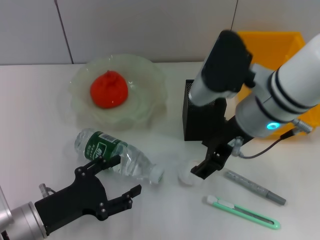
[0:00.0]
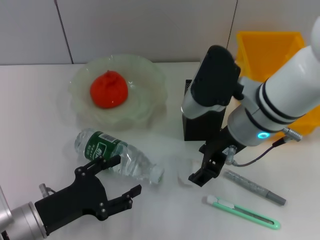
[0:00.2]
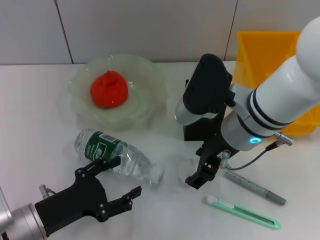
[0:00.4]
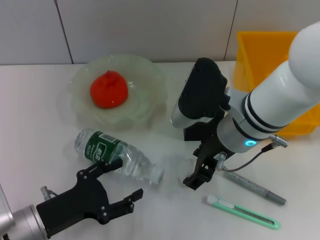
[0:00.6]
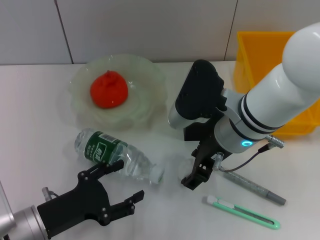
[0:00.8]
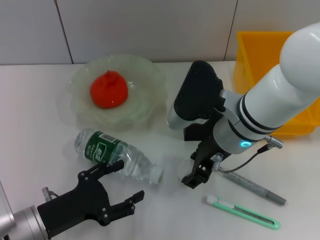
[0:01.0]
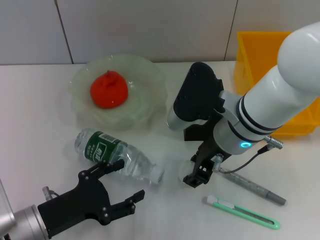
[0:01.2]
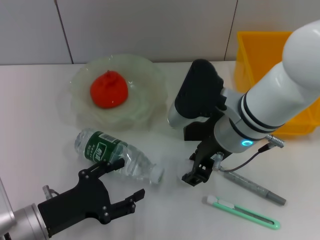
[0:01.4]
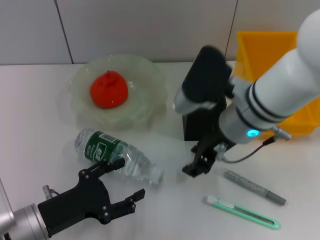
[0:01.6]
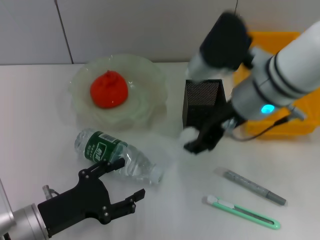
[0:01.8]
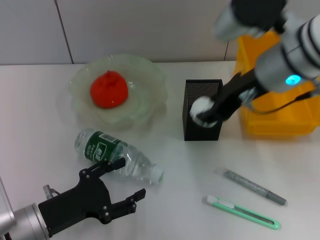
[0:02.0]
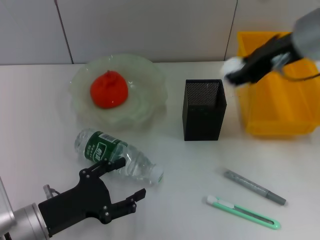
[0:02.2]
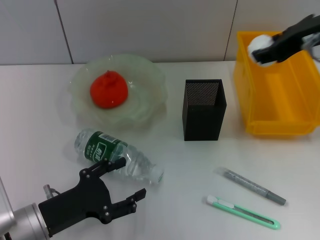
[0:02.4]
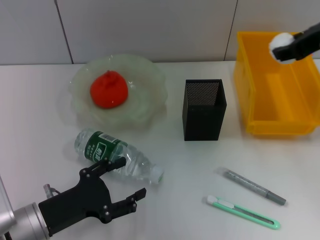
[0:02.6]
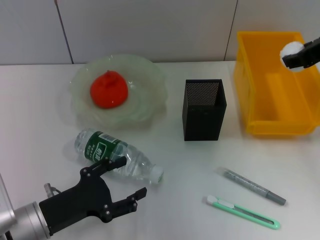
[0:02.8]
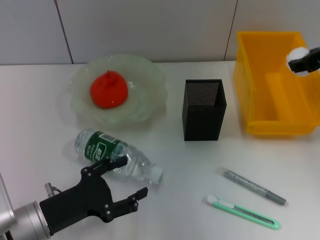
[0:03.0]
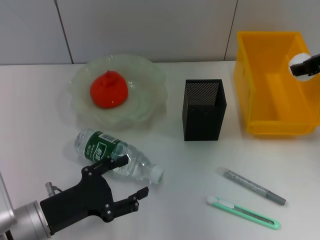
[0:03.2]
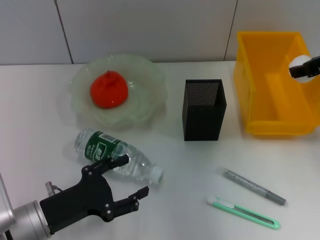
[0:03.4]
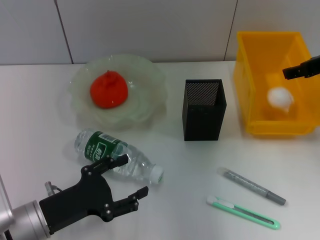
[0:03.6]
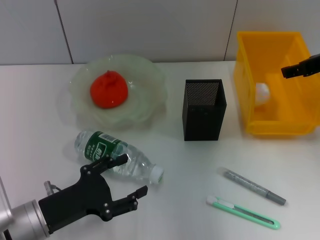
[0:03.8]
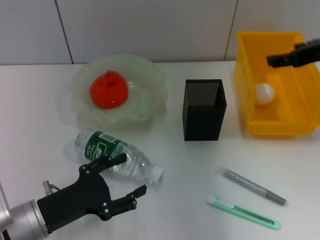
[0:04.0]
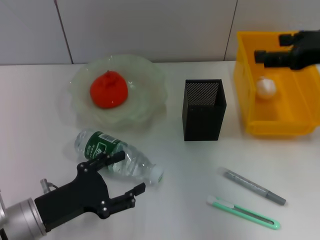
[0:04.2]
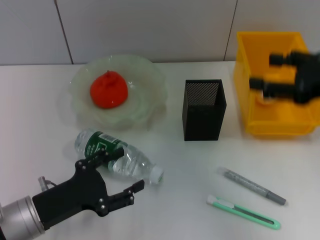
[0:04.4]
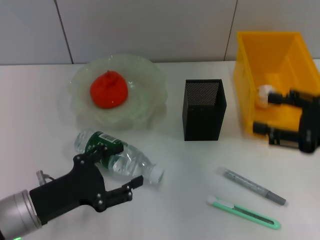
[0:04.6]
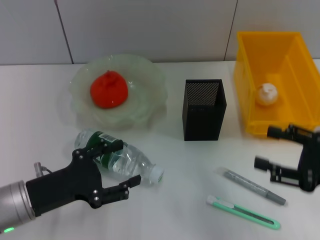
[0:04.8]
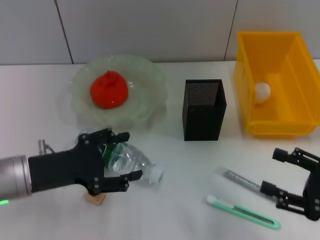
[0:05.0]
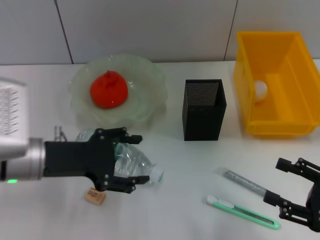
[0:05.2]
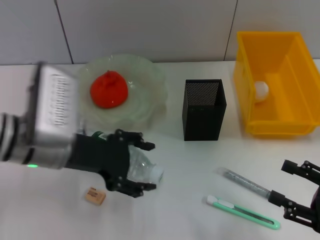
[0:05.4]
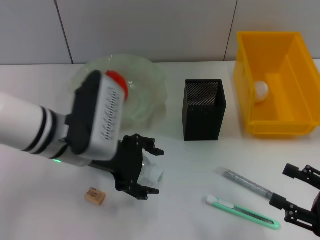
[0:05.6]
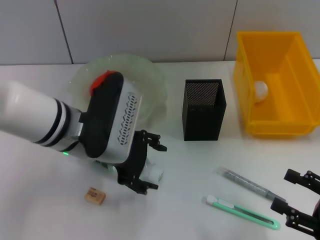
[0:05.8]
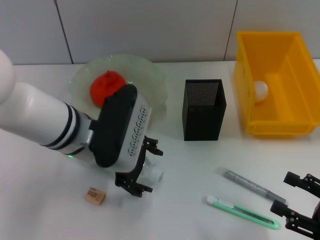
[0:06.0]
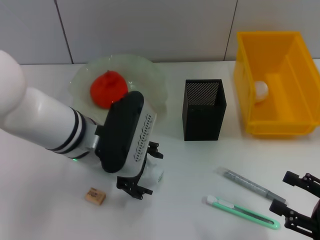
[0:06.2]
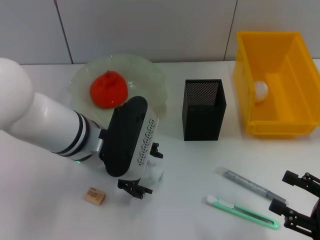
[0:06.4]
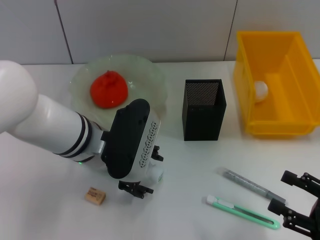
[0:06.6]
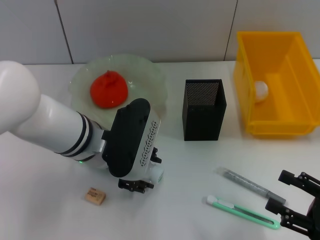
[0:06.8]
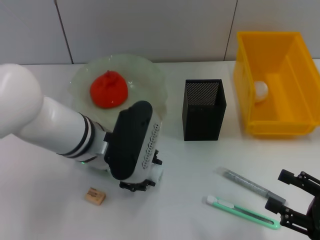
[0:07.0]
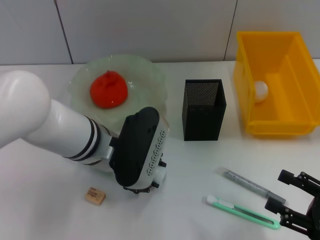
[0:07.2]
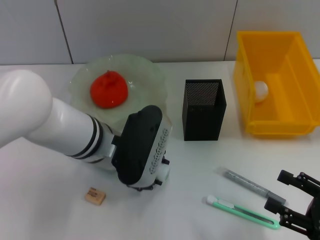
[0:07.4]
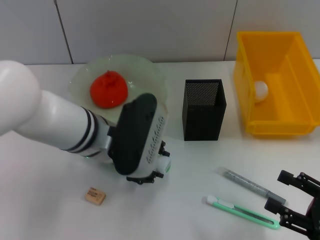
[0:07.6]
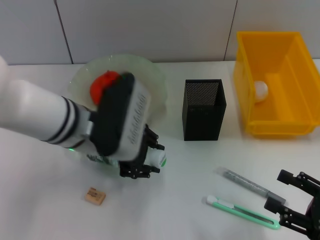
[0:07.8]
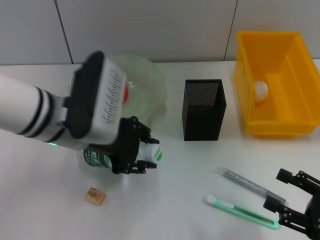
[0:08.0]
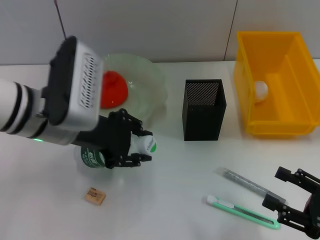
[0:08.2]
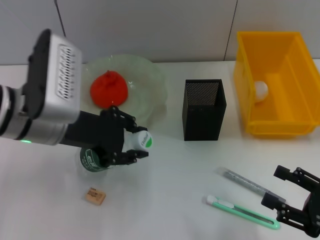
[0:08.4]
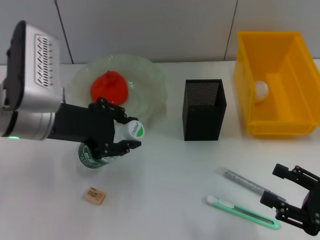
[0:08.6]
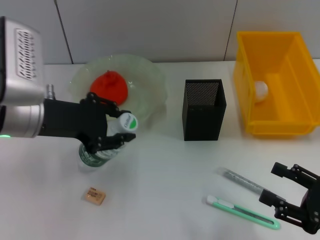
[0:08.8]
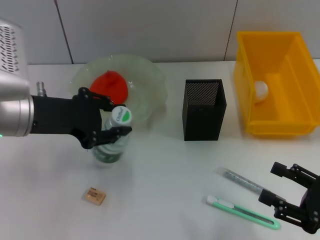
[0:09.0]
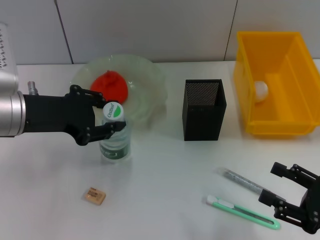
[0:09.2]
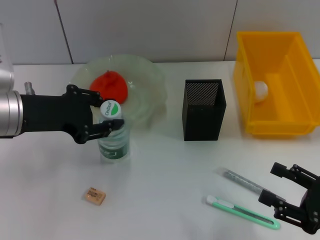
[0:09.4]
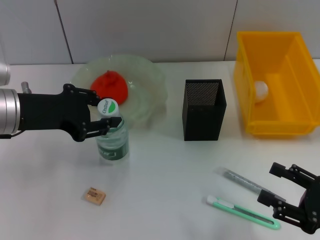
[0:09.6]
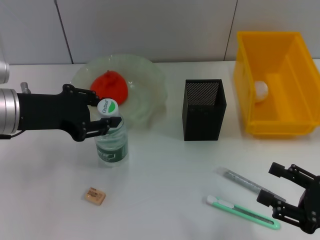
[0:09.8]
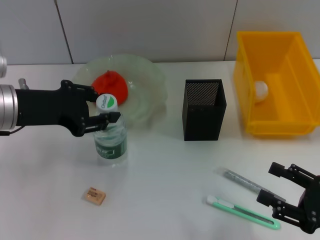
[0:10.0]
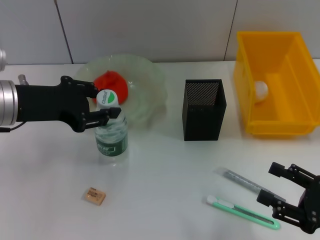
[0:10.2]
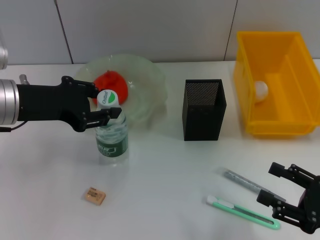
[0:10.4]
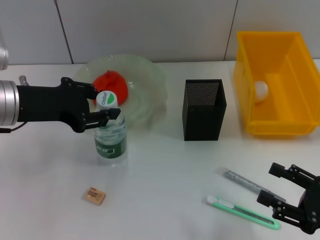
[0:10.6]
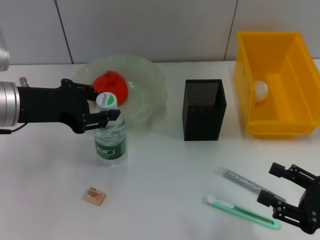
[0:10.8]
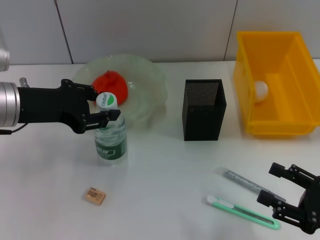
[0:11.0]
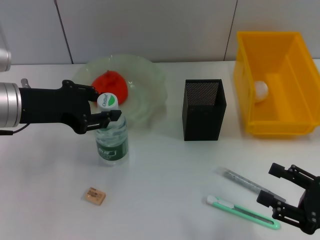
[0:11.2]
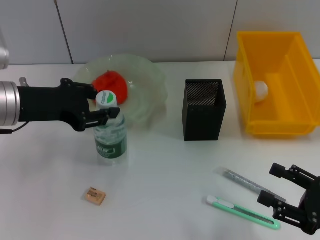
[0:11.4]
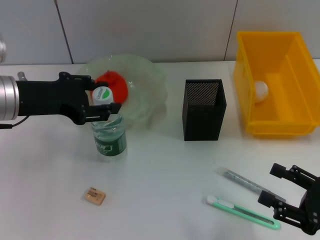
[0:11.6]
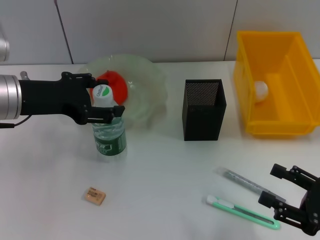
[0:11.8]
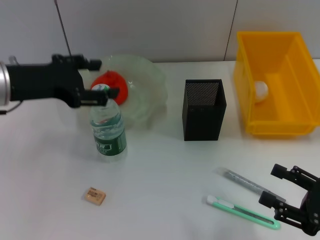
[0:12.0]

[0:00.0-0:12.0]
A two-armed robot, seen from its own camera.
Step, 0:01.4 to 0:03.8: Place the paper ball into the trash can with the right hand.
Step, 0:04.0 to 0:07.0: Grab the water bottle with the left hand.
0:00.0 to 0:01.6: The right gripper closes its fingers.
0:01.6 to 0:03.0: The right gripper moves to the right and upward, some 20 cm.
0:03.0 to 0:04.4: The right gripper moves backward, some 10 cm, and opens up.
0:04.4 to 0:06.0: The right gripper shifts some 20 cm downward and backward, while the left gripper moves upward, to the right and forward, about 20 cm.
0:06.0 to 0:07.6: The left gripper closes its fingers.
0:07.6 to 0:09.0: The left gripper is displaced to the left by some 10 cm.
0:09.0 to 0:10.4: The grippers make only small movements.
0:10.4 to 0:12.0: The left gripper opens its fingers.

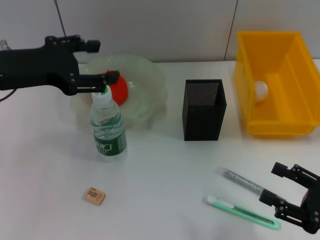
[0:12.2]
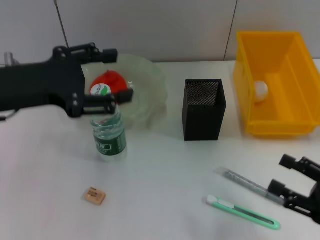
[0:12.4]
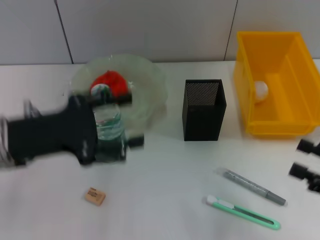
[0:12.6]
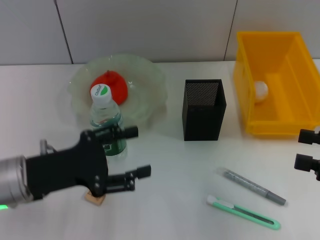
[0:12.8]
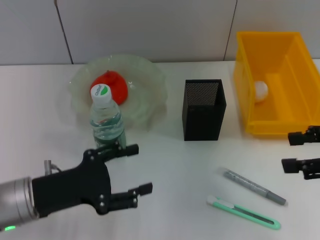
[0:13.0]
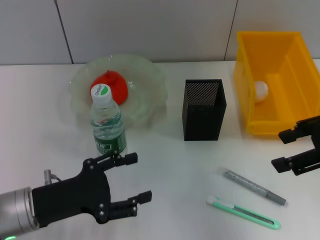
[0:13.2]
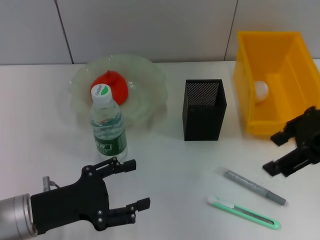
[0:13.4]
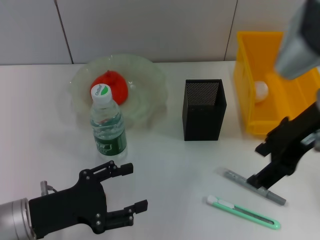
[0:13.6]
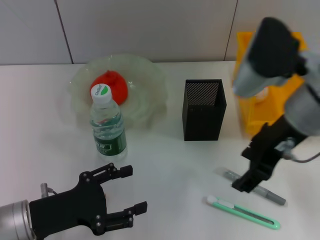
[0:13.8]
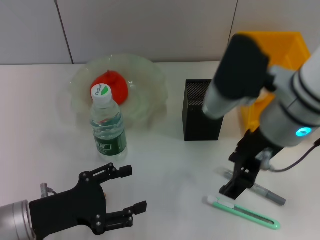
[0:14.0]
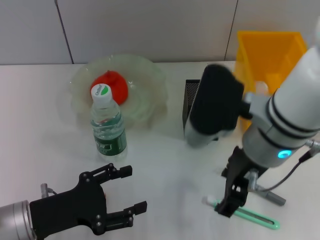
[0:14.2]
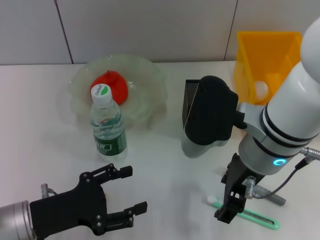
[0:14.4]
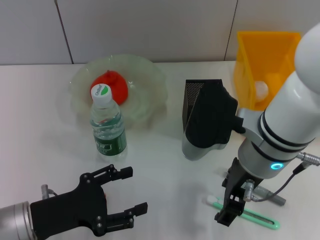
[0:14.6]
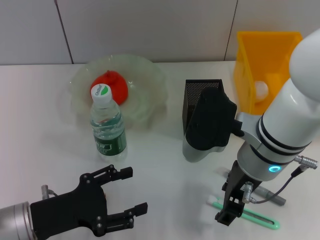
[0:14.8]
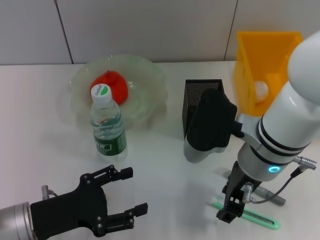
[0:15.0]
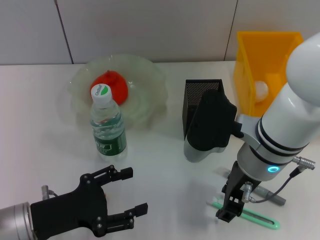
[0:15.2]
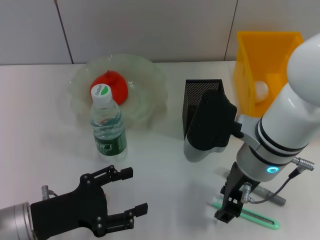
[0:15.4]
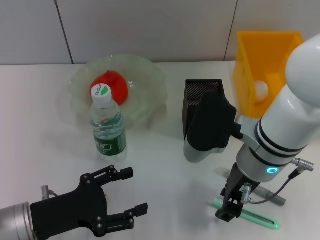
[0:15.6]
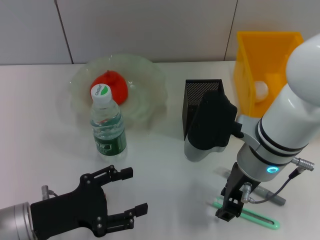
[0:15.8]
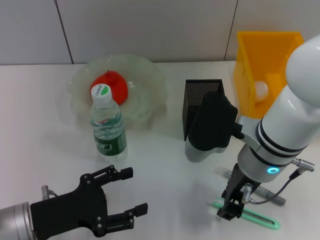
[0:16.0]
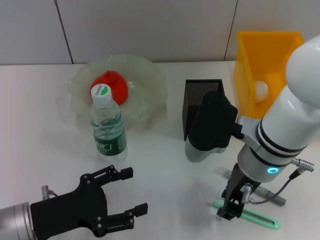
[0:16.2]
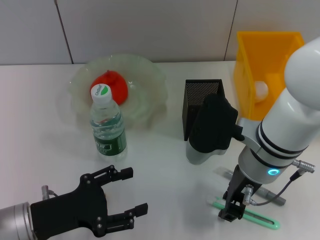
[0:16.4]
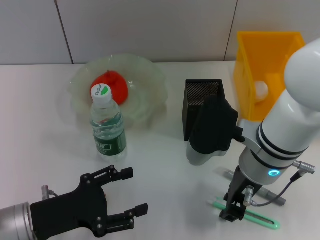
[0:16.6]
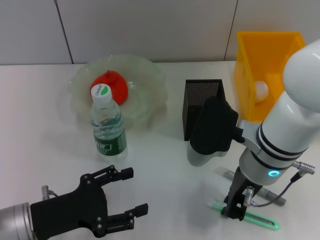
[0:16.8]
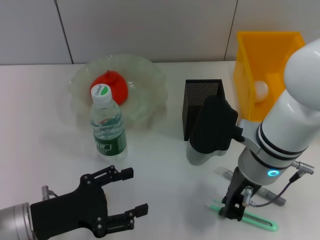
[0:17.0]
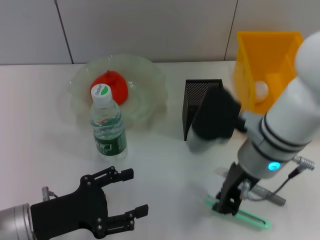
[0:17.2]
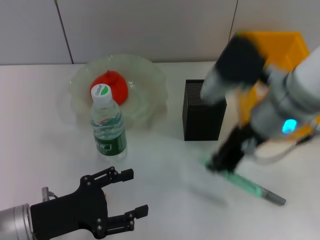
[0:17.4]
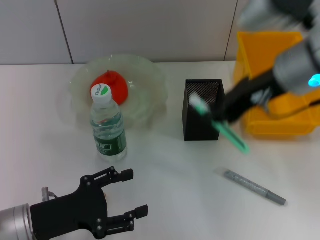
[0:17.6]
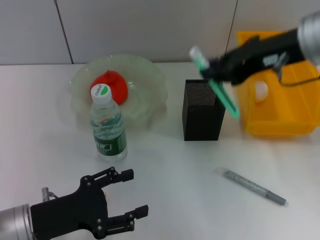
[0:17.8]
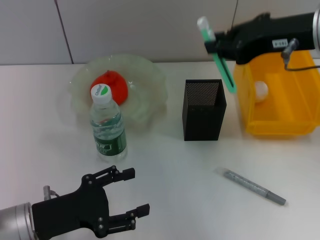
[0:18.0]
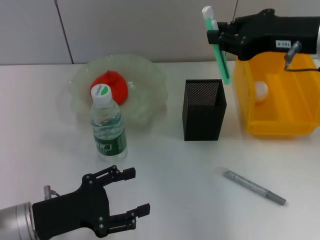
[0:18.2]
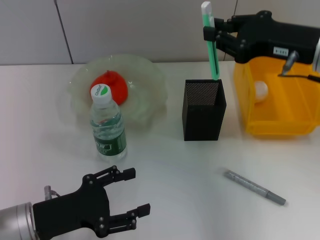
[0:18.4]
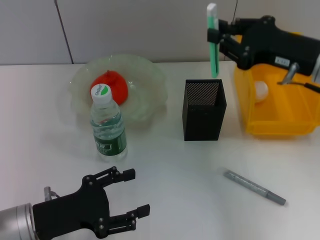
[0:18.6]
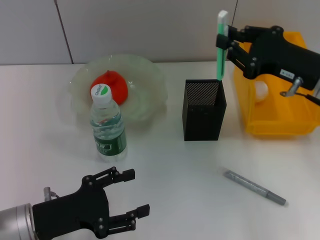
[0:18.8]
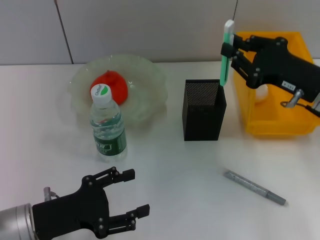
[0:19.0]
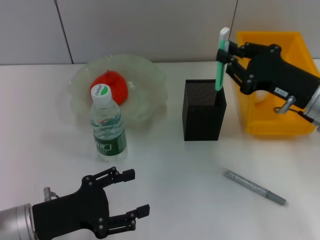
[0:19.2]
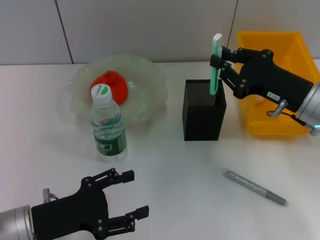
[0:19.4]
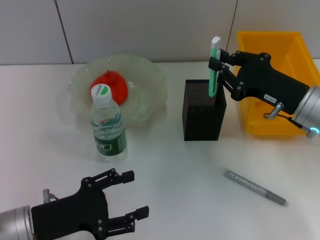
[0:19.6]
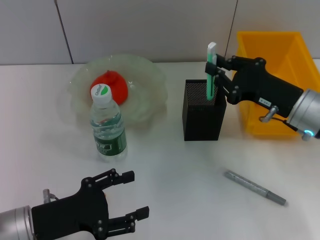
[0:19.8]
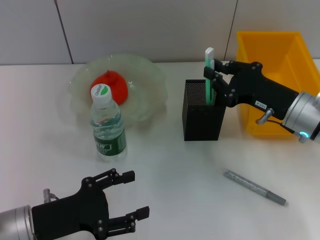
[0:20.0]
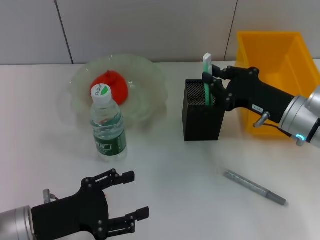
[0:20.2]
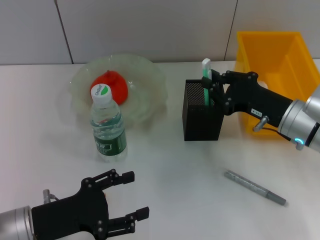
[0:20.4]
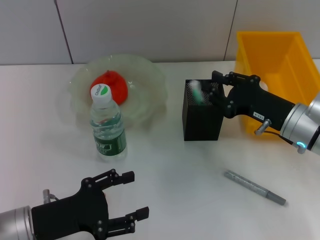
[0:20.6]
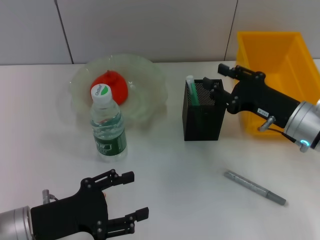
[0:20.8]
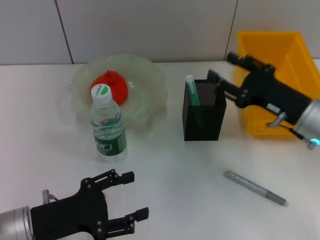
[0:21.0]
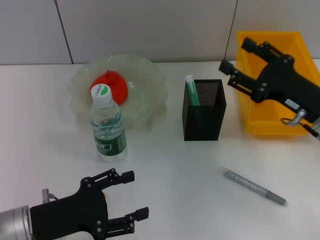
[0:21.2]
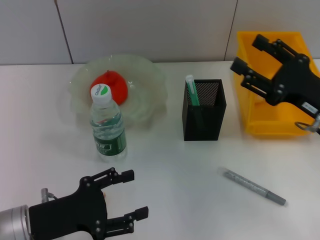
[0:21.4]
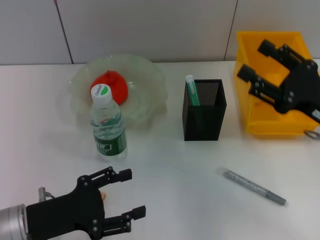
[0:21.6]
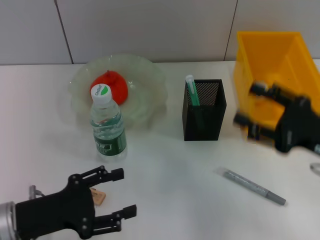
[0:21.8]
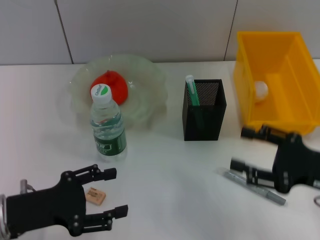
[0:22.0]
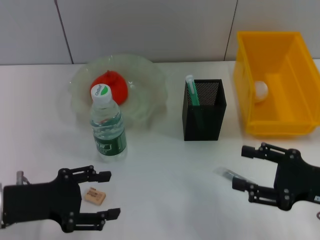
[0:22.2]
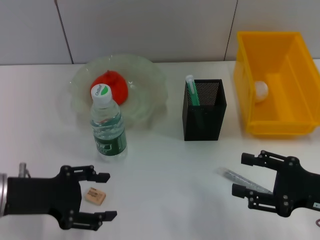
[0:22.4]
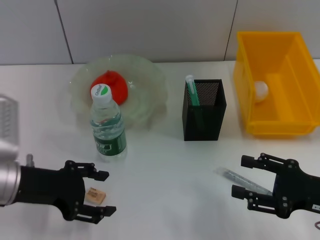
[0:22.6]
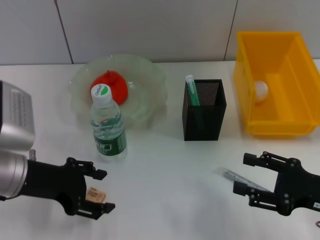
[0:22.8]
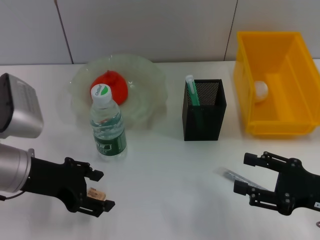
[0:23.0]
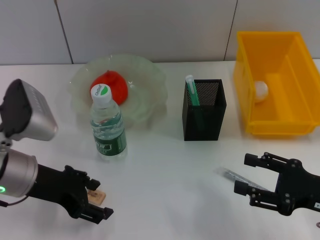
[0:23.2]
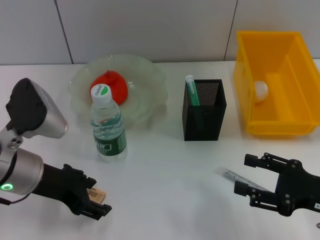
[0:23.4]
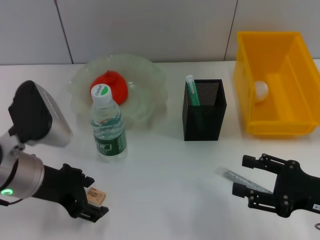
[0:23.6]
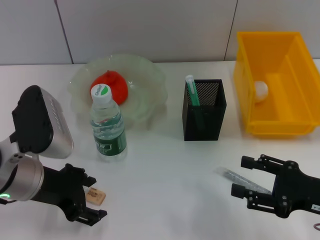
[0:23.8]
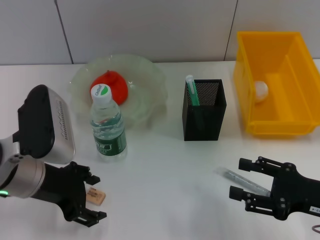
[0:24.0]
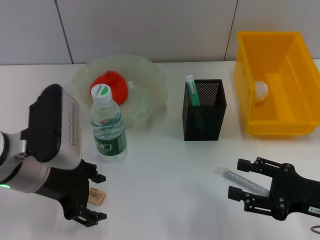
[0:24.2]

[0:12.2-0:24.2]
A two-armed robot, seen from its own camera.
Step, 0:12.4 to 0:16.8: Grab the blue utility knife with the right hand.
Step, 0:17.0 to 0:20.8: Place the blue utility knife into the pen holder with the right hand.
0:12.2 to 0:13.8: The left gripper goes roughly 20 cm downward and backward. The right gripper travels upward, to the left and forward by approximately 25 cm.
0:13.8 to 0:15.2: The right gripper moves downward, some 10 cm.
0:15.2 to 0:16.6: Both grippers stay about where they are.
0:16.6 to 0:18.2: The right gripper travels upward and to the right by roughly 15 cm, and closes.
0:18.2 to 0:19.8: The right gripper goes approximately 15 cm downward.
0:19.8 to 0:21.2: The right gripper opens.
0:21.2 to 0:22.6: The right gripper travels backward by about 10 cm. The left gripper shifts approximately 10 cm upward and forward.
0:22.6 to 0:24.2: The left gripper travels to the right by roughly 5 cm.
